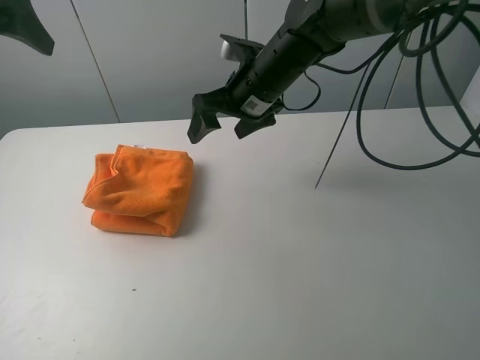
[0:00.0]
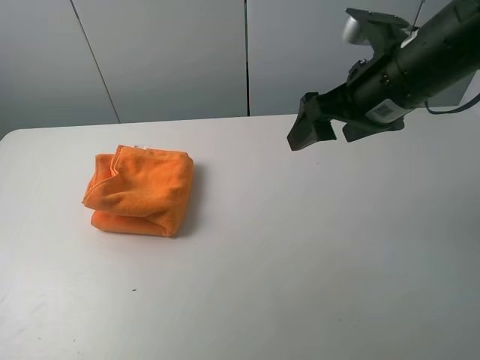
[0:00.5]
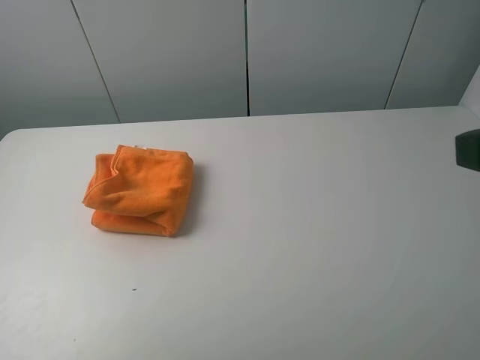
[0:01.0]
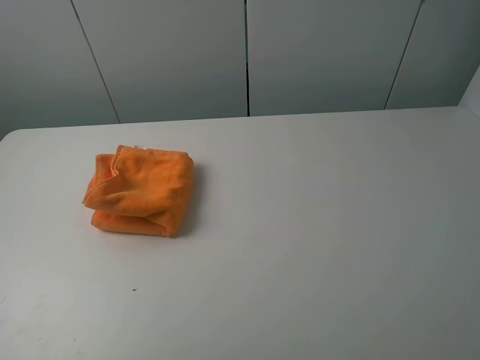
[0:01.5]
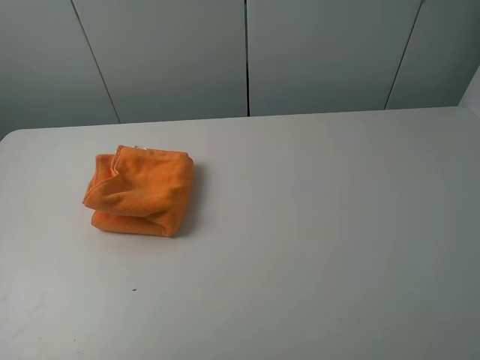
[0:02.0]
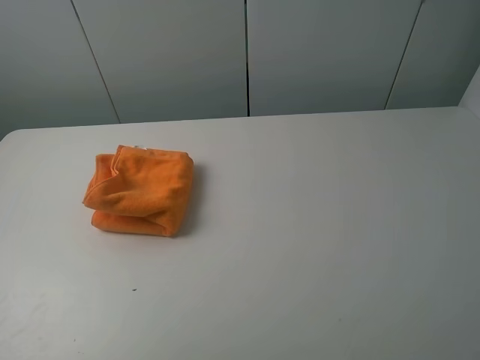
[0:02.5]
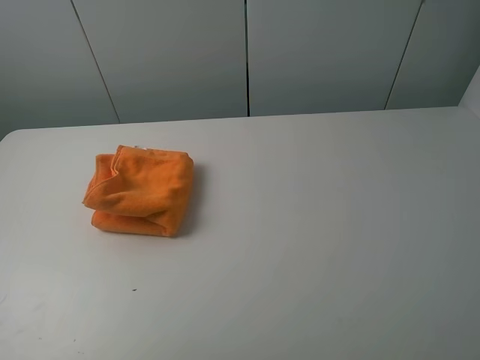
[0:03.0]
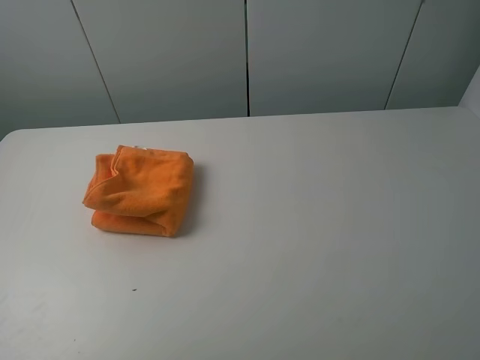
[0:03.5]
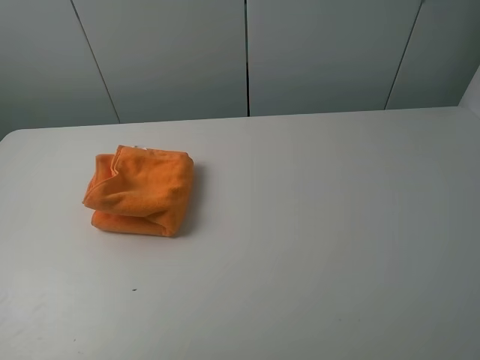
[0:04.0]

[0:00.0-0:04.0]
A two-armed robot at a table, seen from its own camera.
Task of the whole recording: fold the towels on the table.
0:00.0 to 0:02.0: The right gripper shifts some 40 cm backward and to the right. The left gripper moves backward, some 30 cm.
